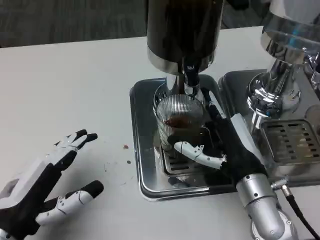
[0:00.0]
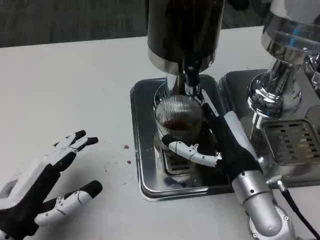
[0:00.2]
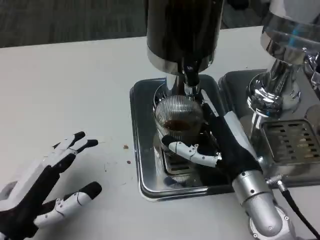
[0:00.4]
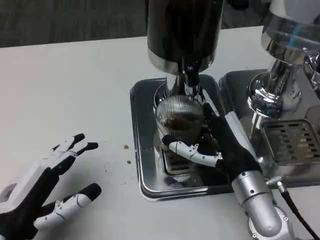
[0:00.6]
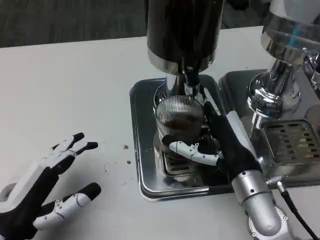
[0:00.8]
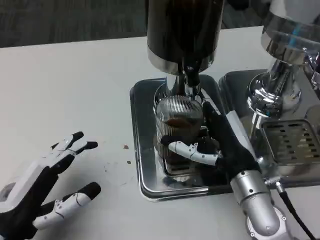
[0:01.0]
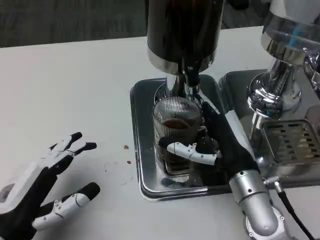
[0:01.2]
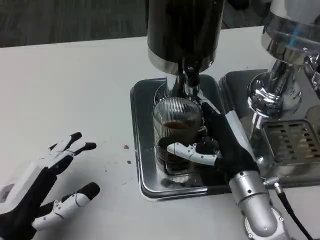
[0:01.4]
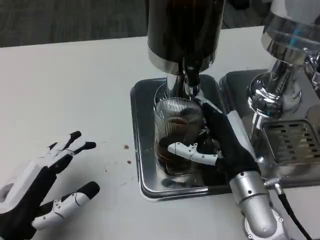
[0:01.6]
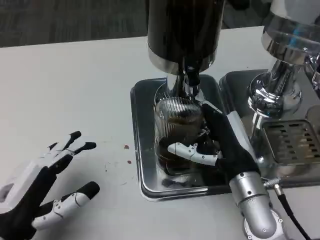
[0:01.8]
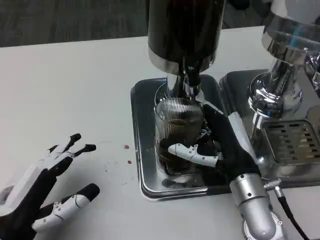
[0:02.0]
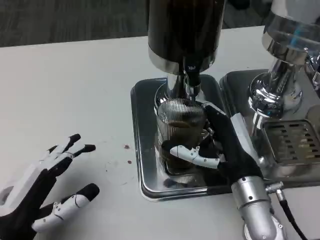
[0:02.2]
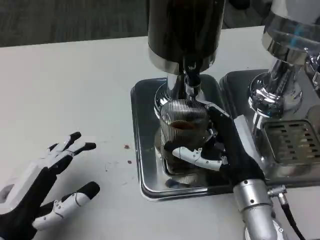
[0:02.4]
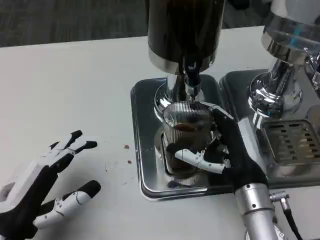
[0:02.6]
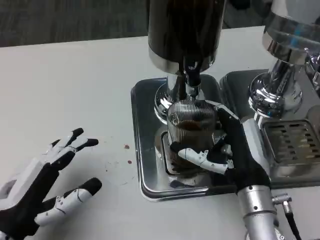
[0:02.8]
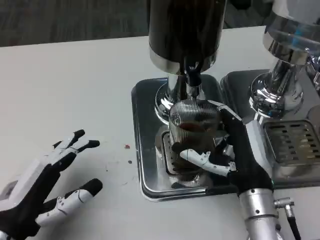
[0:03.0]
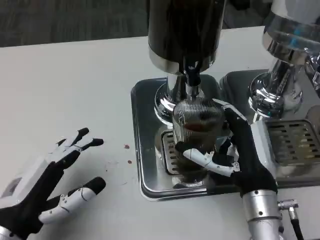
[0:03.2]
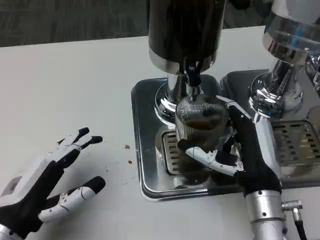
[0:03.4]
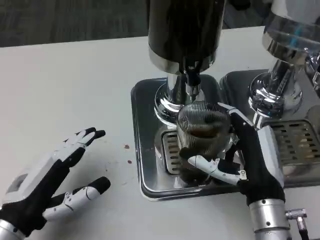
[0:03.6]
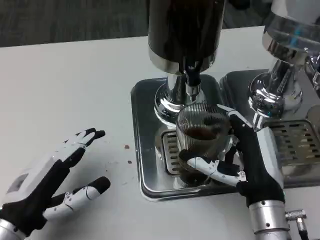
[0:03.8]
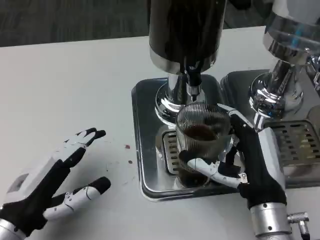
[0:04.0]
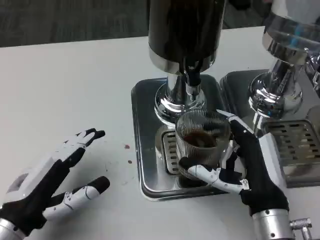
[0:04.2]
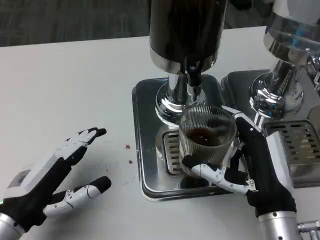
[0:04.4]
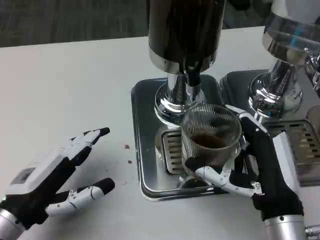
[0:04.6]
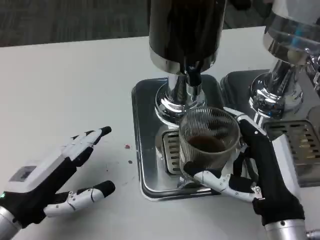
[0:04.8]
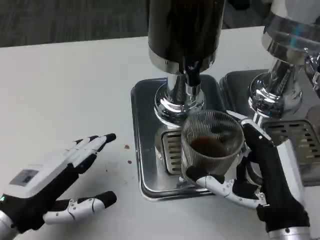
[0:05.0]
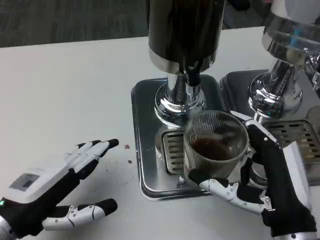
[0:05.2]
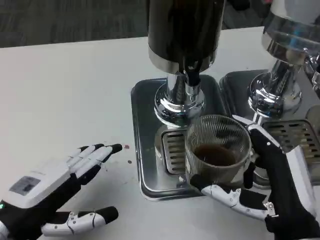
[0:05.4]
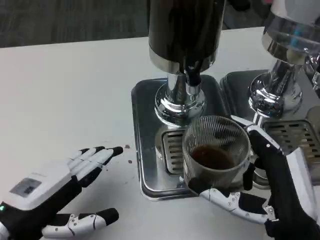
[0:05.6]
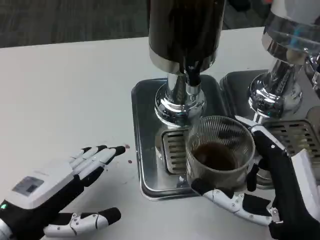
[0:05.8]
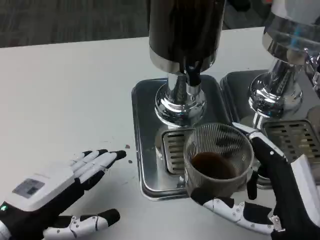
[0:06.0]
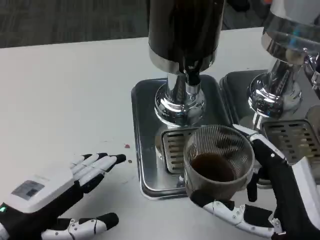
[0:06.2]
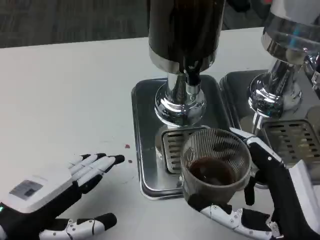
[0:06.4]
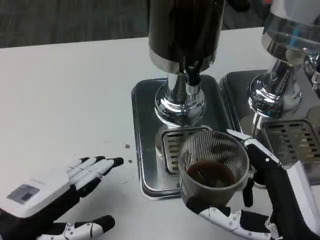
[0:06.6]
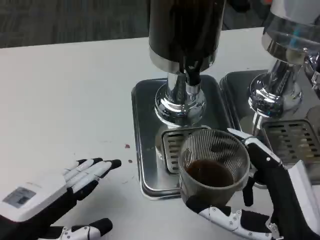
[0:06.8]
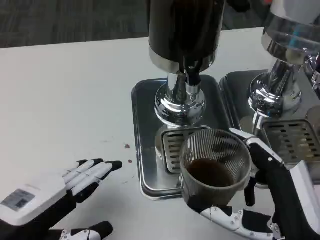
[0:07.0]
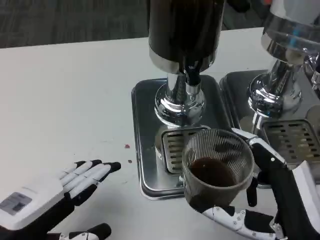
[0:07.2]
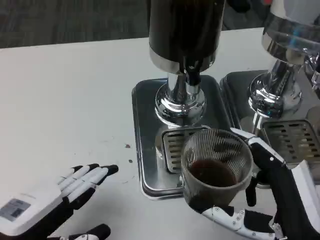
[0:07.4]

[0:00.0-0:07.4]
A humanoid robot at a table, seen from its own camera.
Task of the whole recording: Grasp the cup under the faucet to collect the drink, then remove the cup.
0:00.0 to 0:04.4: The hands move only a little.
0:04.4 to 0:06.0: The right hand heads backward, covering about 5 cm.
0:06.0 to 0:07.4: The hands move only a little.

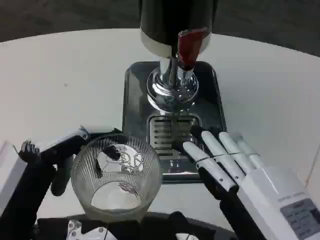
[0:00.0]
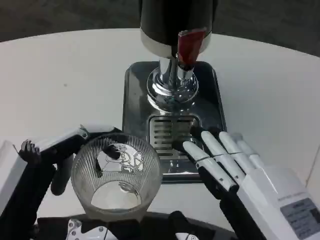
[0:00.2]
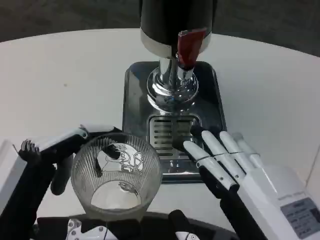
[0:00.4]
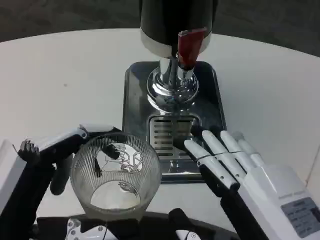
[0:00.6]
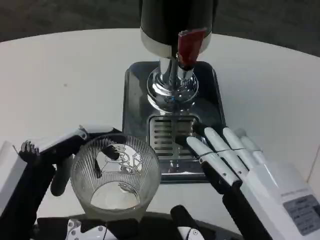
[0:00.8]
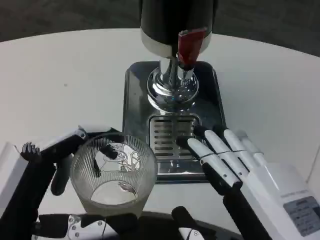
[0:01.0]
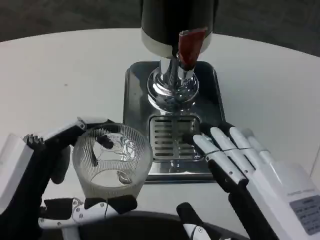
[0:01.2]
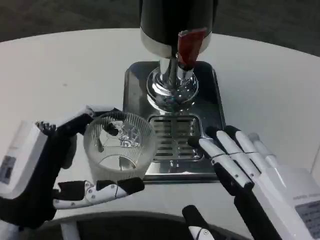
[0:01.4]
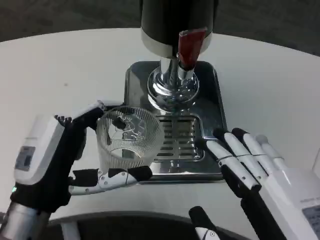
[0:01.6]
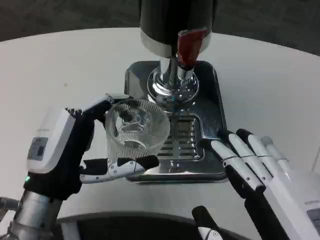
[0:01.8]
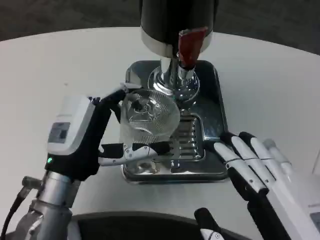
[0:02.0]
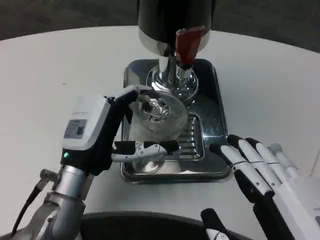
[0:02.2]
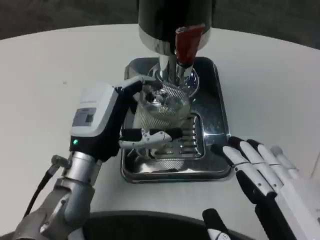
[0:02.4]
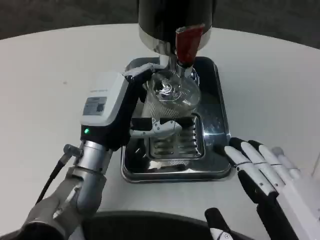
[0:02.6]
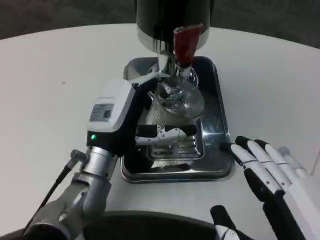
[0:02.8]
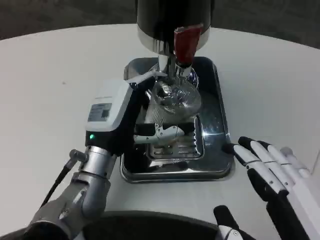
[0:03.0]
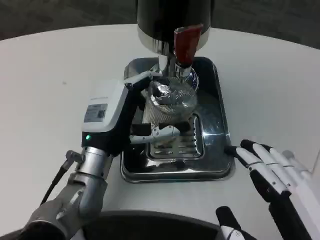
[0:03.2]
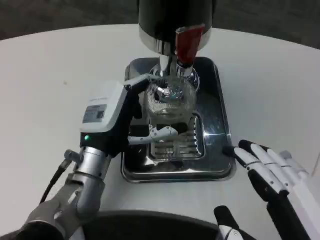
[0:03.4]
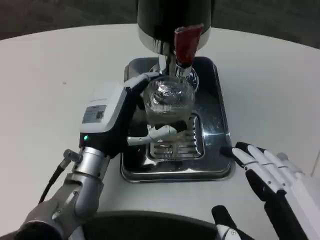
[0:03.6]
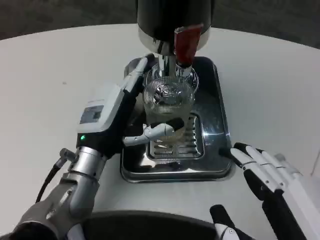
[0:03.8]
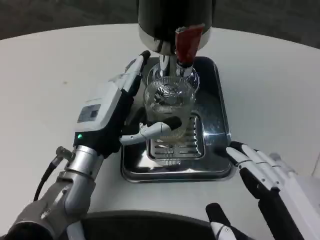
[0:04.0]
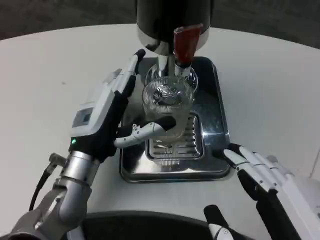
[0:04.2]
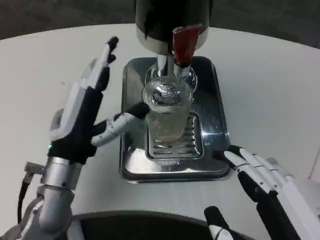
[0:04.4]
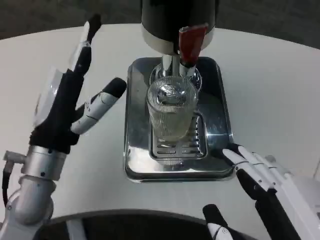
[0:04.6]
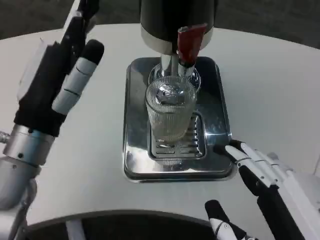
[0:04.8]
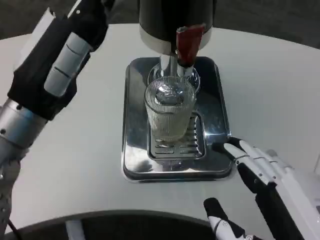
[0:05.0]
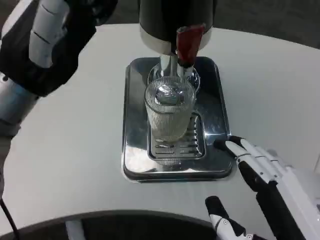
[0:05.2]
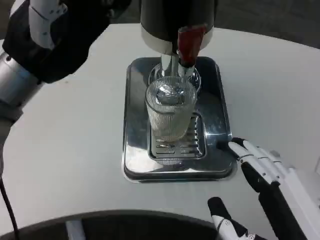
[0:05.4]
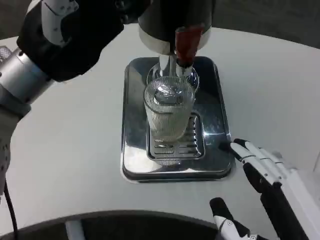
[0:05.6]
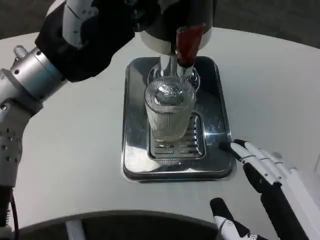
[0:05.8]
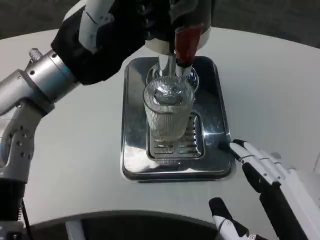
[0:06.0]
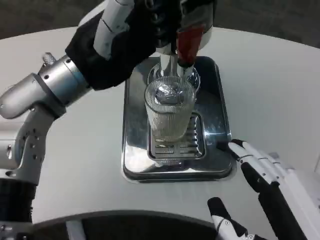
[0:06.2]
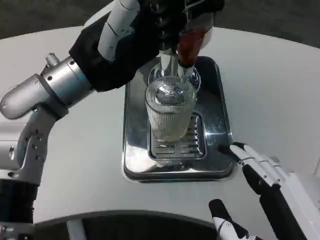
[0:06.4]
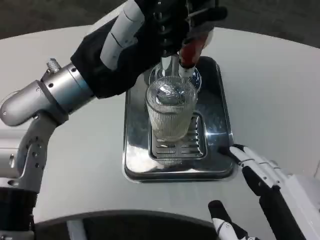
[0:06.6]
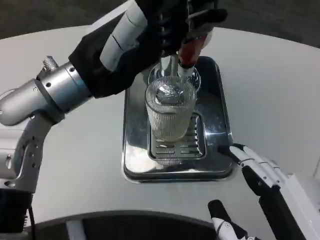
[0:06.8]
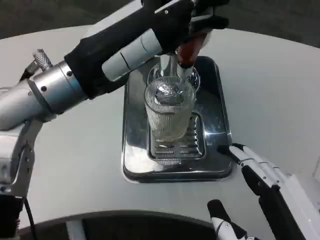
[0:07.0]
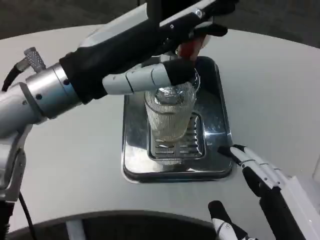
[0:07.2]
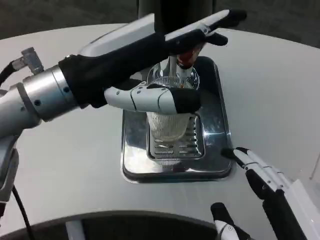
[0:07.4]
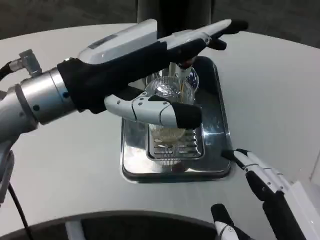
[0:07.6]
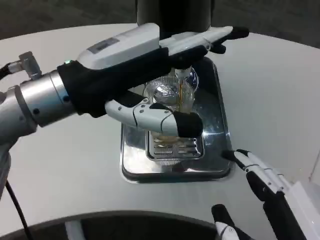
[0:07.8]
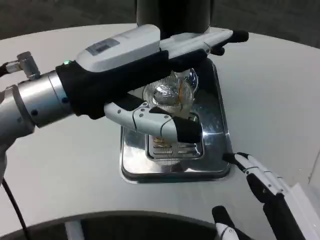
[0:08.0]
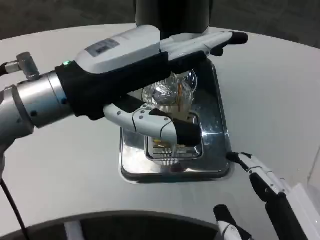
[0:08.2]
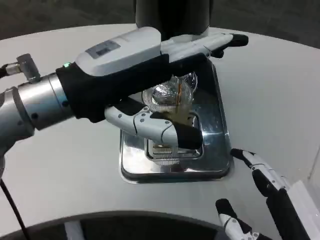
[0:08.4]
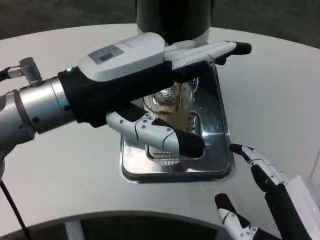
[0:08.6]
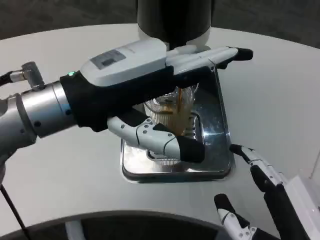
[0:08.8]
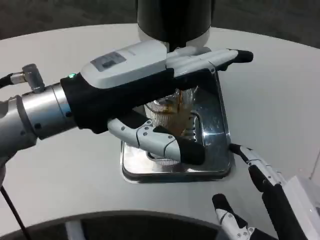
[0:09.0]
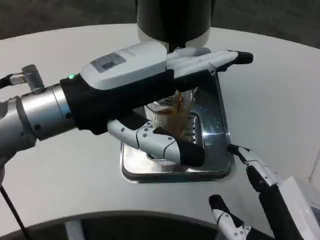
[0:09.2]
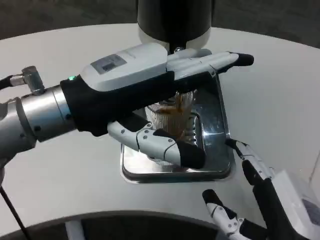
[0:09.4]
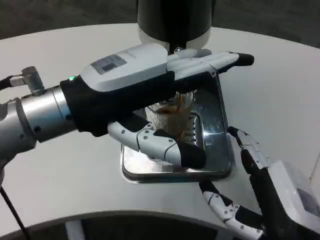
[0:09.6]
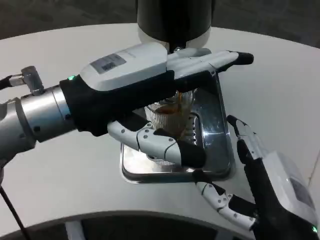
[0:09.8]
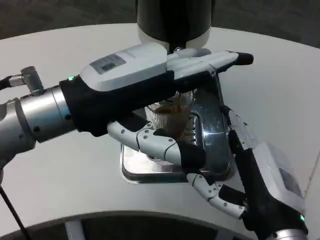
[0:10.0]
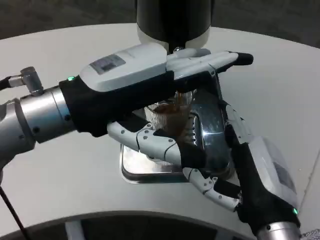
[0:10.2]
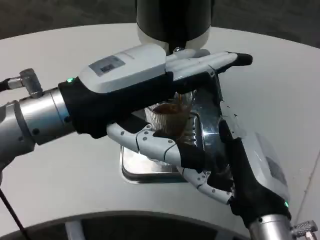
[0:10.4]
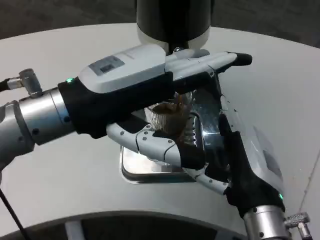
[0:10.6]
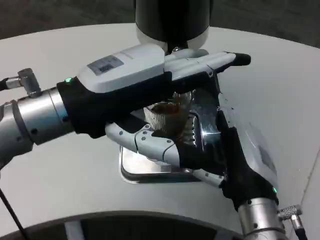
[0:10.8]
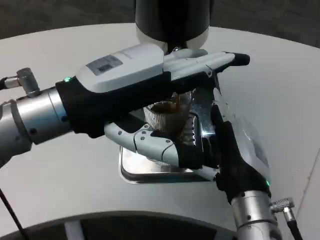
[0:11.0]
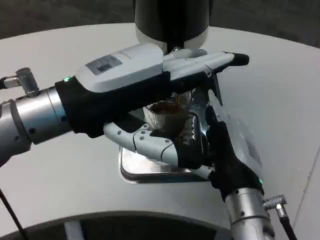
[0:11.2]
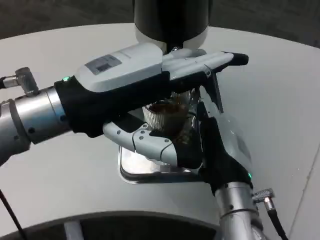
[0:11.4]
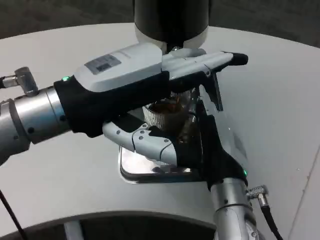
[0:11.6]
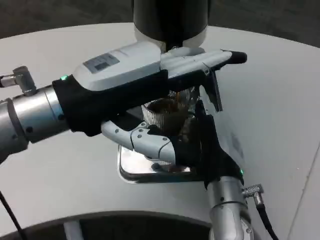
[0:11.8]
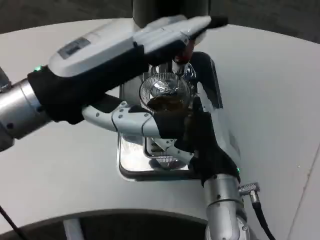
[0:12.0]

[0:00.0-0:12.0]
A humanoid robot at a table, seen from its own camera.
Task of the whole recording: Grasp the cup under the faucet to collect the drink, then remove the cup.
0:00.0 to 0:01.6: The left hand shifts about 10 cm forward.
0:01.6 to 0:03.0: The left hand moves forward and to the right, approximately 15 cm.
0:03.0 to 0:04.4: The left hand moves roughly 5 cm.
0:04.4 to 0:06.0: The left hand heads upward, covering approximately 15 cm.
0:09.0 to 0:10.4: The right hand goes about 10 cm forward.
0:10.4 to 0:12.0: The right hand goes roughly 5 cm forward.

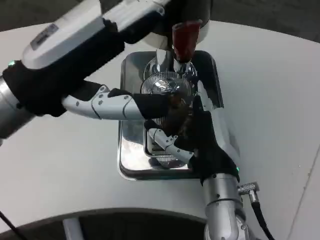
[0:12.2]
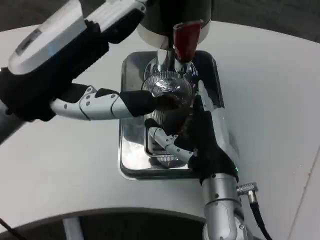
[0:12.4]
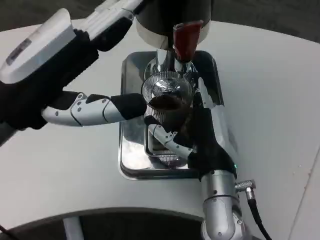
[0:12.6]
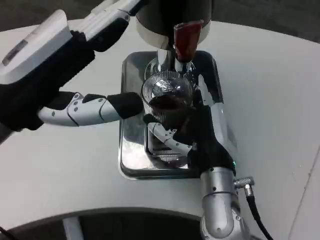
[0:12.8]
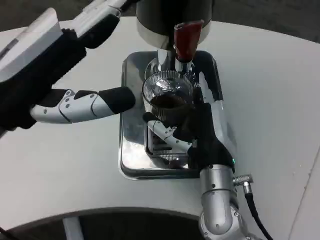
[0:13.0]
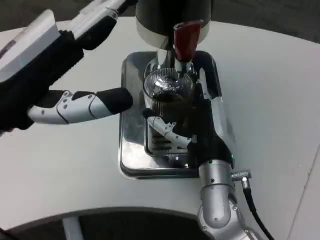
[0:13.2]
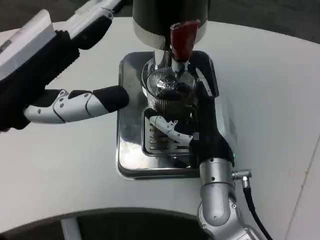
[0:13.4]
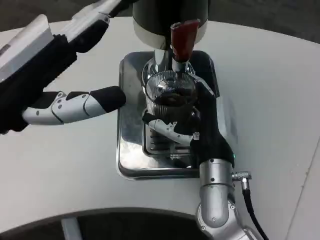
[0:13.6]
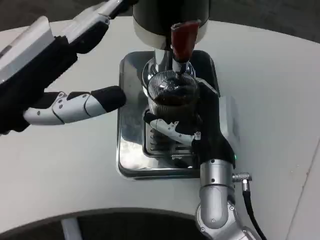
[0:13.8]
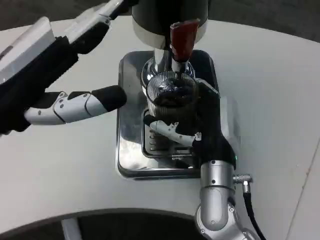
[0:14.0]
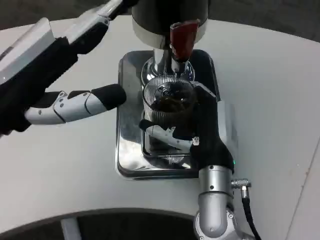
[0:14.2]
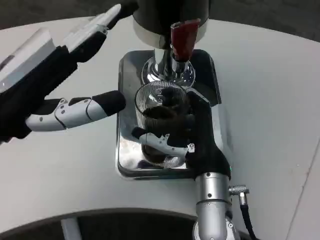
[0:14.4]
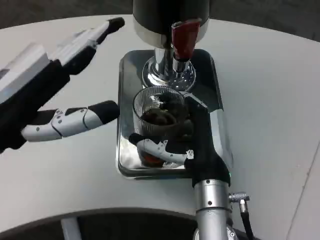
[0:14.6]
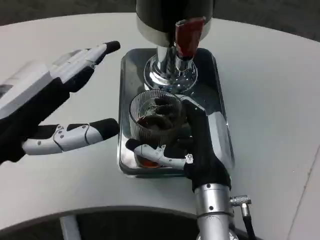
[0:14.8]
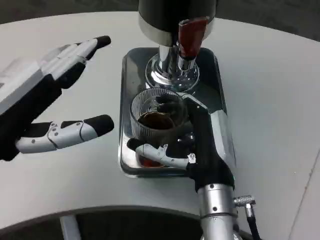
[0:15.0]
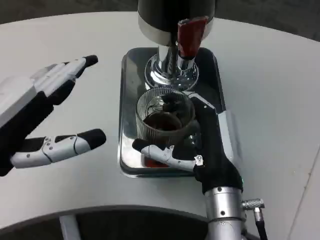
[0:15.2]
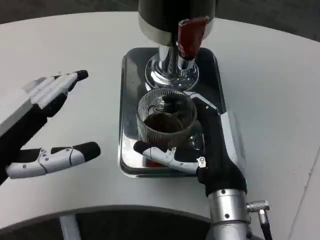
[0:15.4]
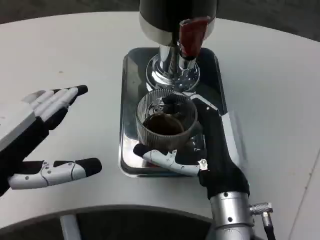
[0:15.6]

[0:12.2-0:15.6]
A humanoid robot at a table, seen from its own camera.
Task of the whole recording: Grasp the cup under the faucet to collect the drink, then remove the cup.
0:13.8 to 0:15.6: Both hands move backward, some 5 cm.
